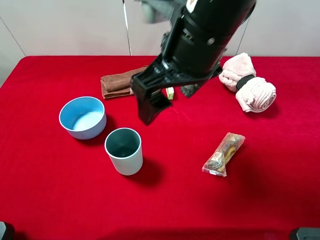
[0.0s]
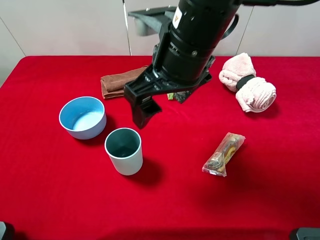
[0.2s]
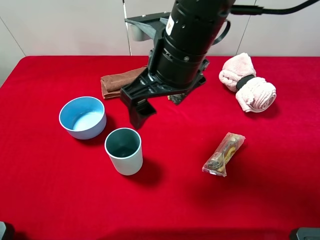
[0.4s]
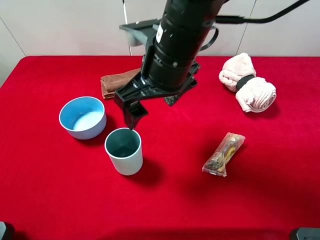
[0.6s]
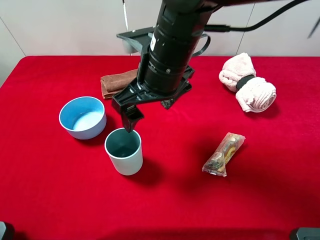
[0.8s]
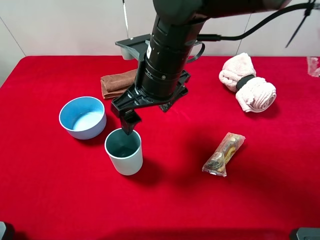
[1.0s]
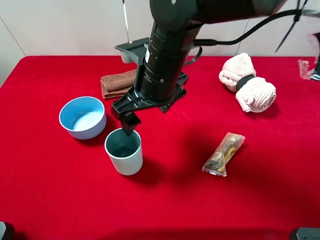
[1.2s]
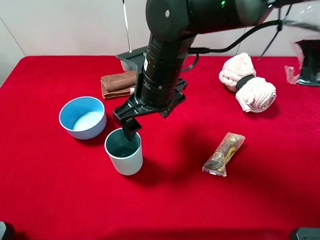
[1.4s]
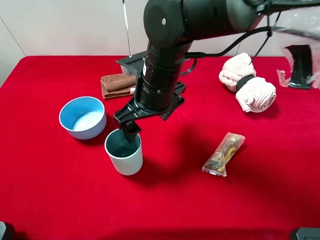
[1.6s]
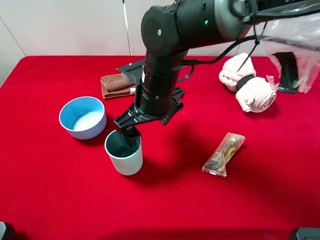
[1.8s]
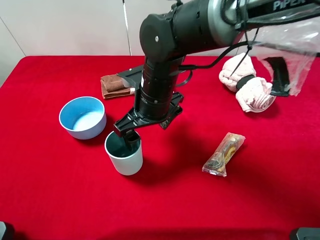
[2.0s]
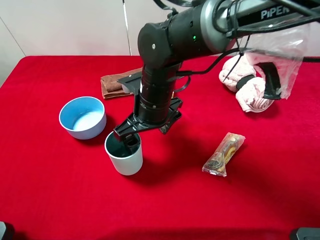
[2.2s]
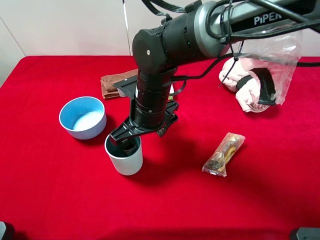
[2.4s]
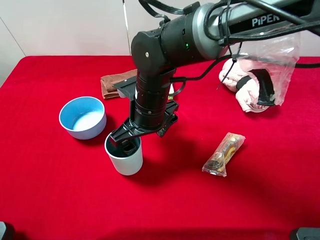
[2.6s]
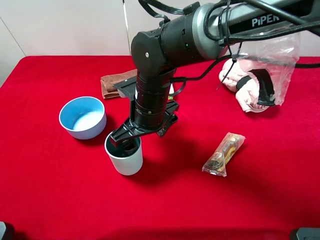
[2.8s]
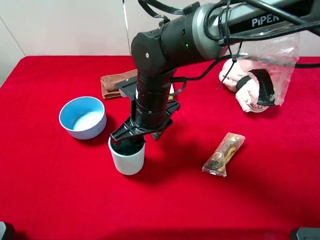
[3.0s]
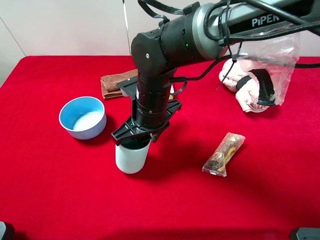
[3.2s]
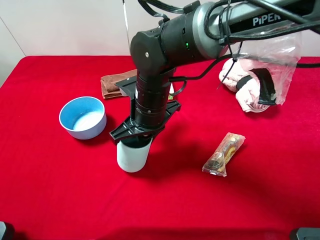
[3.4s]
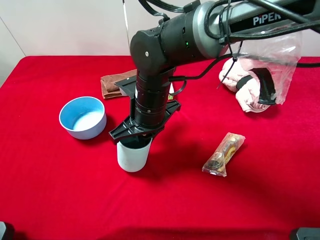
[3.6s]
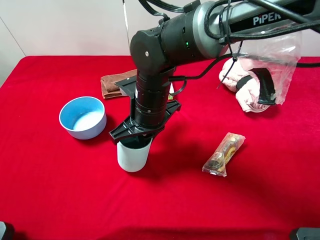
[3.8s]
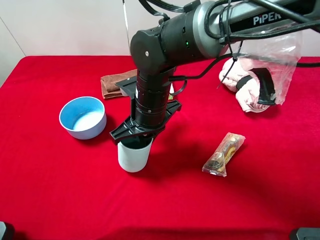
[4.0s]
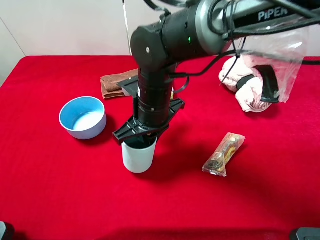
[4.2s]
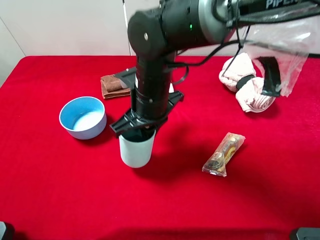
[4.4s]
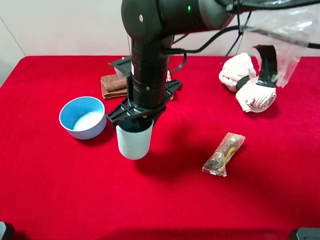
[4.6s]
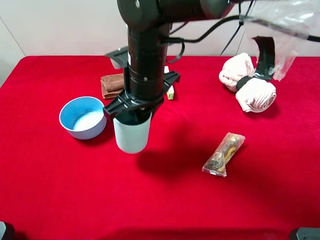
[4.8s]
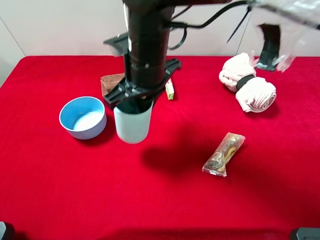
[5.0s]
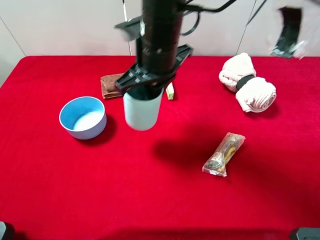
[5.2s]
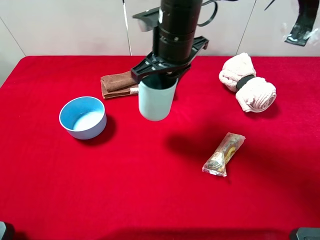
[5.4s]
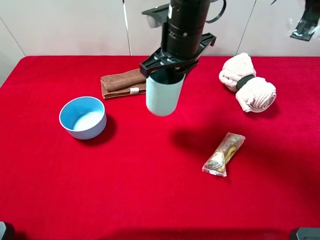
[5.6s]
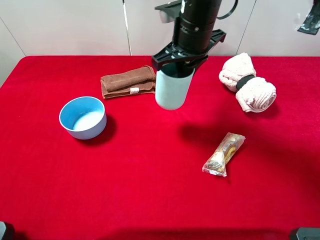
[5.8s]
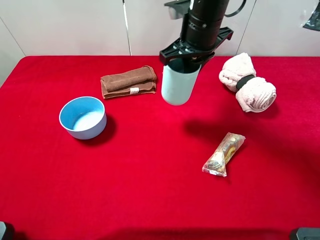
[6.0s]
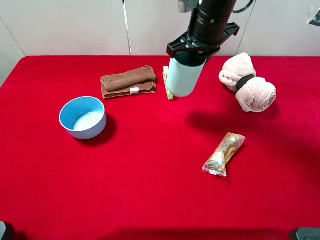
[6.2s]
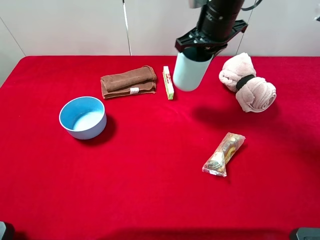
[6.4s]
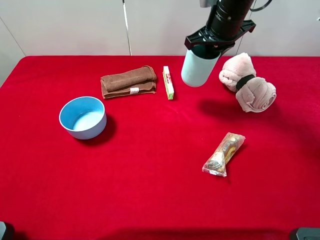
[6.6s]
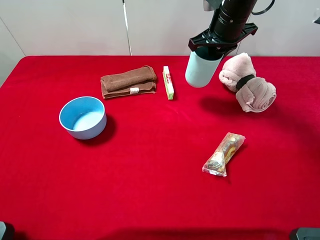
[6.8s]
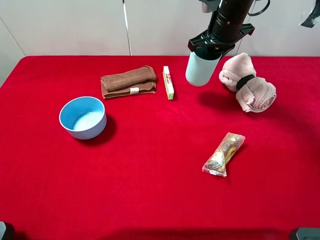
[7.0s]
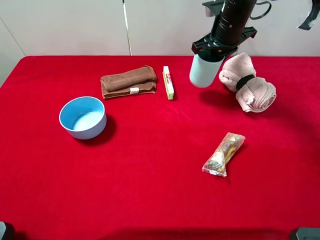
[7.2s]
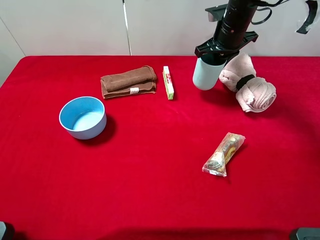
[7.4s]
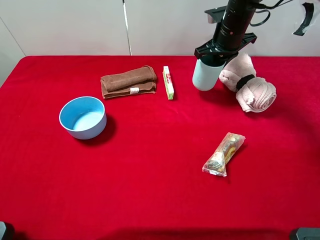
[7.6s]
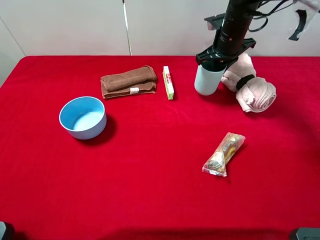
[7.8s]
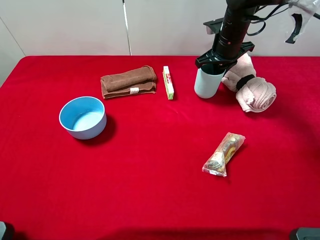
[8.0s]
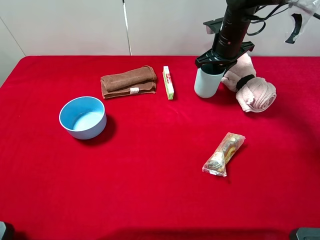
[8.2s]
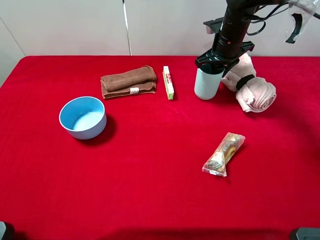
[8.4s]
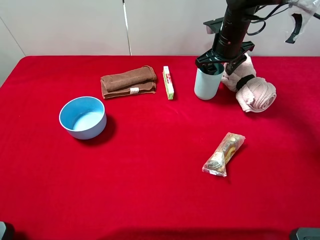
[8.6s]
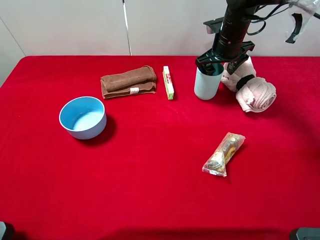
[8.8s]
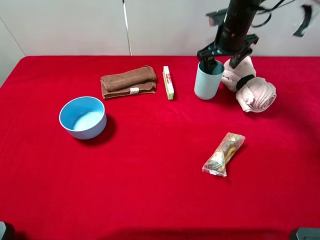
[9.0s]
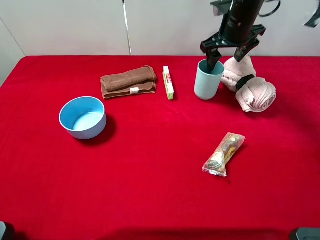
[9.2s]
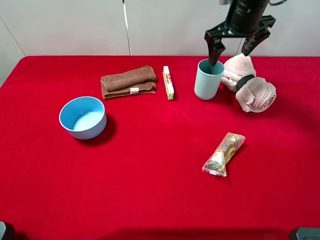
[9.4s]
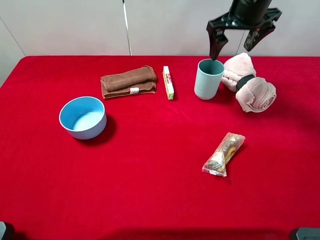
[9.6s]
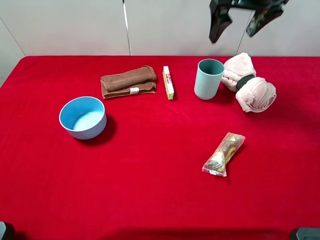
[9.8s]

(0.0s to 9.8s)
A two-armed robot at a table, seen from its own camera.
Task of the whole recording: the gripper move the object.
Step, 0.0s - 3.8s: Grasp the blue cup with the right gripper.
Step, 4.0s - 9.4s: Place the blue cup on the table with the right gripper.
0.0s - 1.4s: The right gripper shifts some 10 cm downward.
1.4s - 2.8s: The right gripper moves downward, approximately 5 cm.
2.8s - 4.2s: The right gripper closes its fingers.
4.2s - 5.6s: The right gripper heads upward and forward, covering about 10 cm.
5.6s - 7.0s: The right gripper is displaced forward and to the right by some 15 cm.
7.0s - 8.4s: The right gripper shifts some 5 cm downward, and opens up.
8.4s - 9.8s: The right gripper goes roughly 15 cm upward, and opens its fingers.

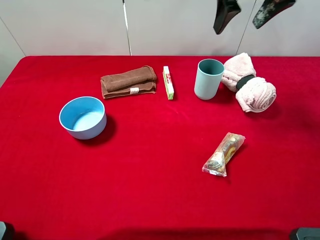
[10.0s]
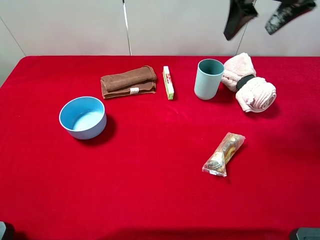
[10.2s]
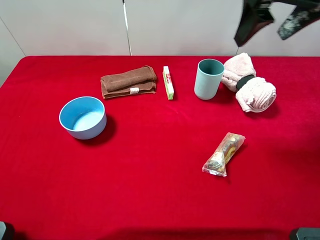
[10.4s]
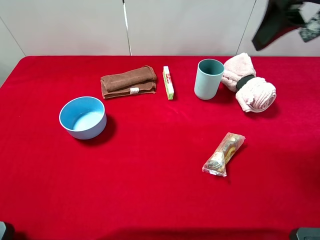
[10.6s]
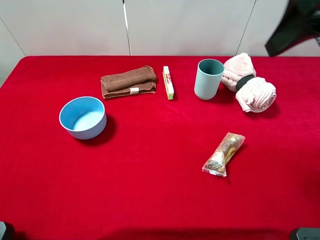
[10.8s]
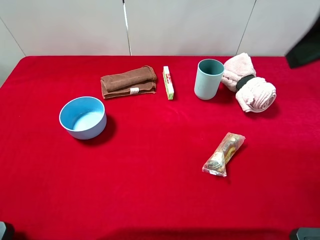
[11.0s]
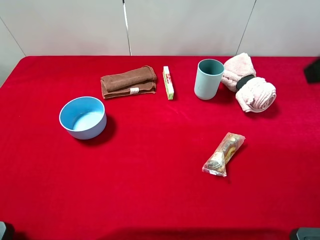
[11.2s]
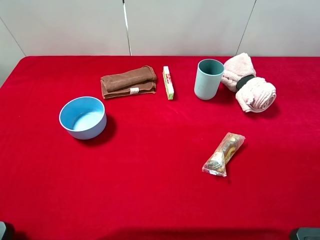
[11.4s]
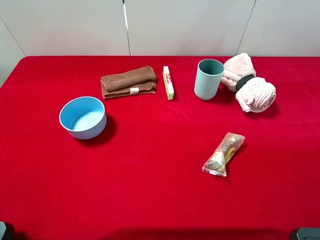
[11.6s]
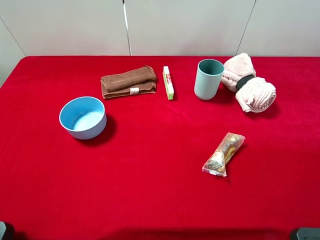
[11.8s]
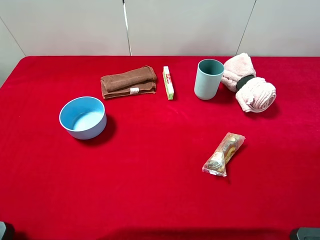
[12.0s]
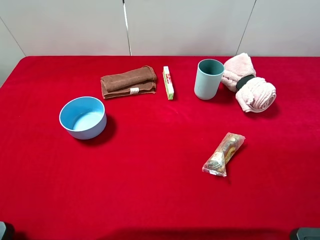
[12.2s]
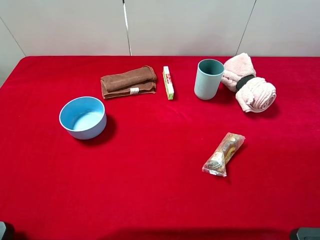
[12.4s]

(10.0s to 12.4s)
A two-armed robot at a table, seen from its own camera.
Task of the whole recording: the gripper move the object.
10.0s - 11.2s: The right gripper moves backward, some 20 cm.

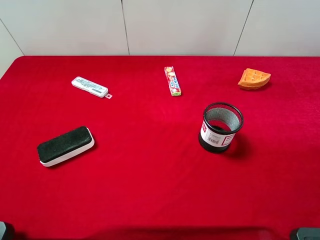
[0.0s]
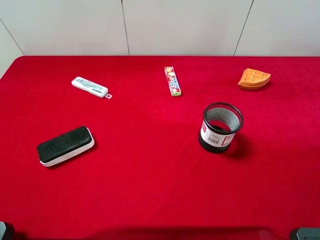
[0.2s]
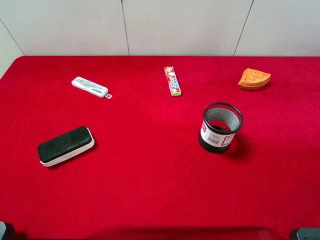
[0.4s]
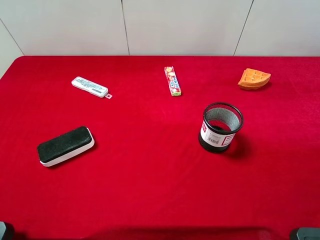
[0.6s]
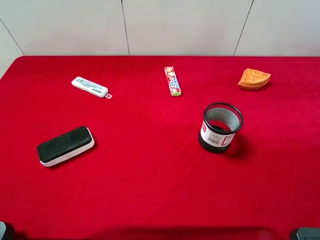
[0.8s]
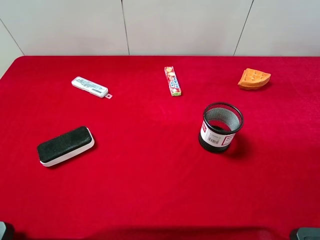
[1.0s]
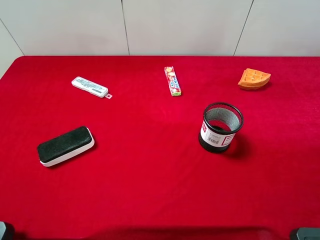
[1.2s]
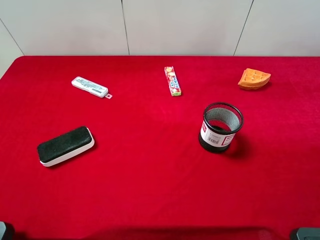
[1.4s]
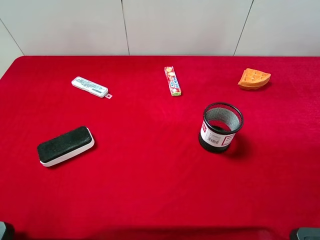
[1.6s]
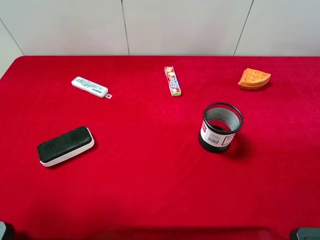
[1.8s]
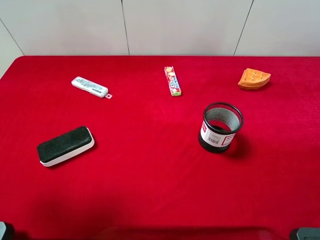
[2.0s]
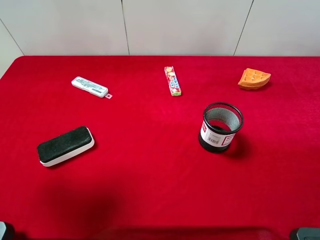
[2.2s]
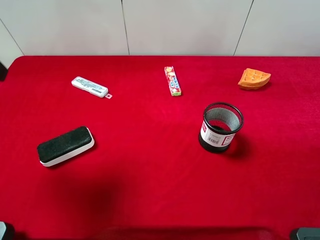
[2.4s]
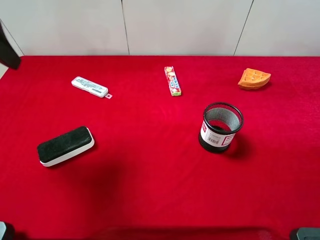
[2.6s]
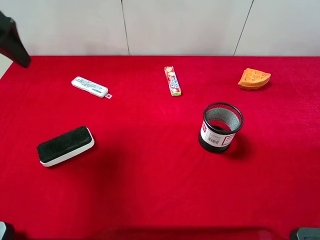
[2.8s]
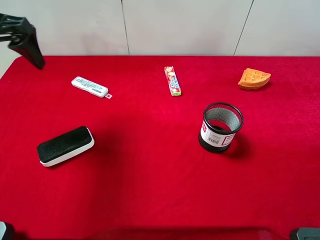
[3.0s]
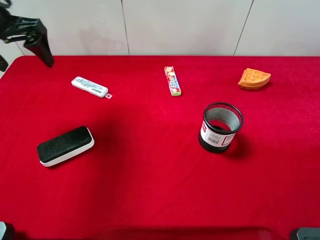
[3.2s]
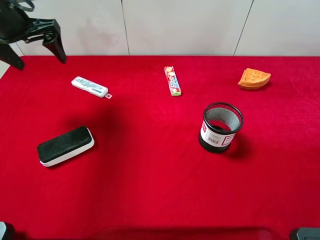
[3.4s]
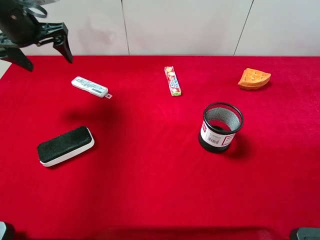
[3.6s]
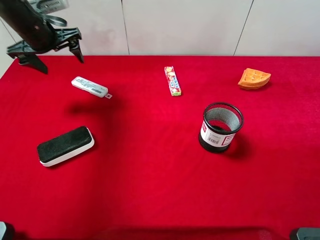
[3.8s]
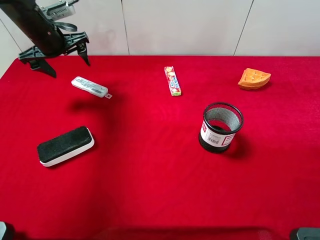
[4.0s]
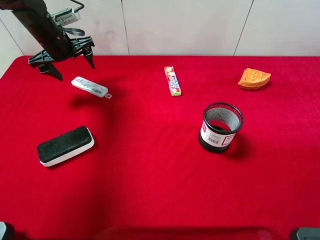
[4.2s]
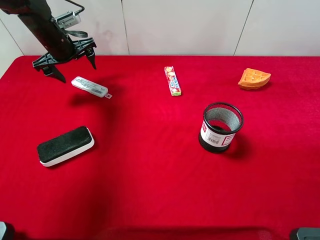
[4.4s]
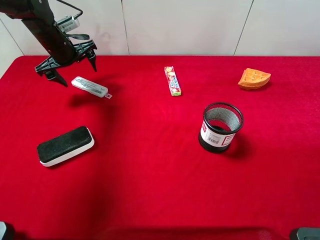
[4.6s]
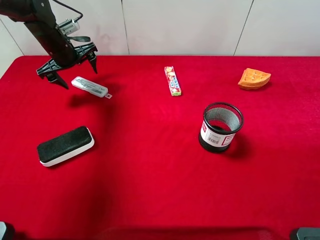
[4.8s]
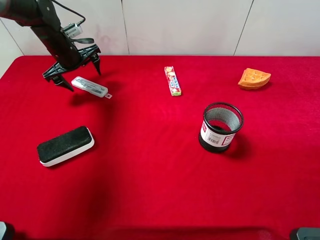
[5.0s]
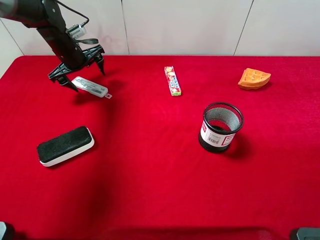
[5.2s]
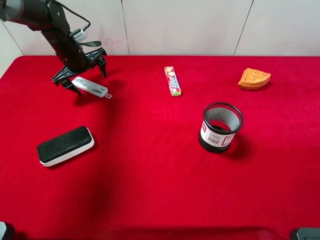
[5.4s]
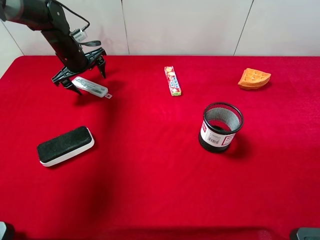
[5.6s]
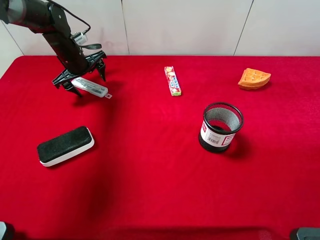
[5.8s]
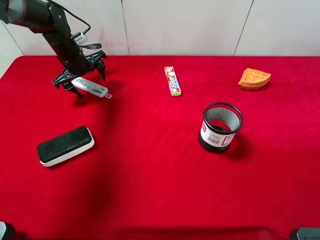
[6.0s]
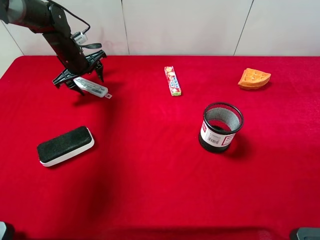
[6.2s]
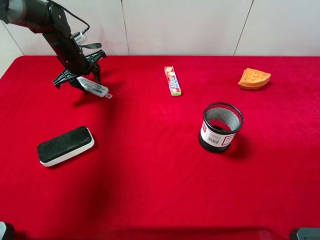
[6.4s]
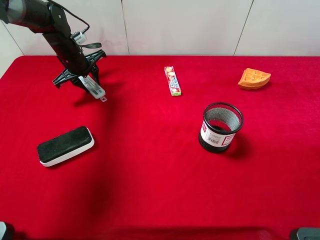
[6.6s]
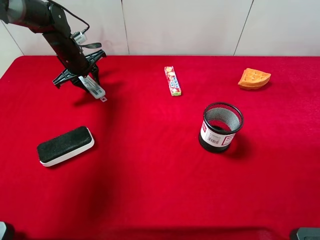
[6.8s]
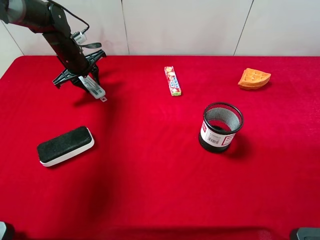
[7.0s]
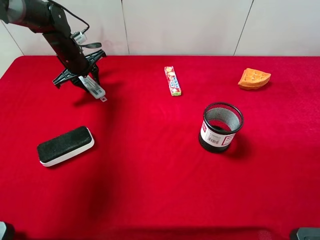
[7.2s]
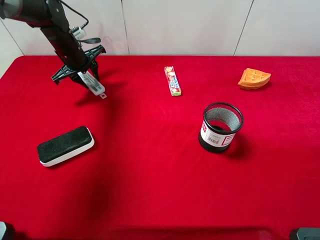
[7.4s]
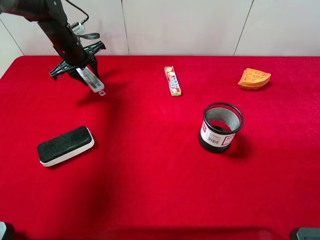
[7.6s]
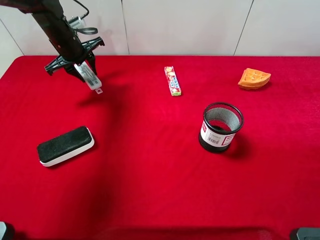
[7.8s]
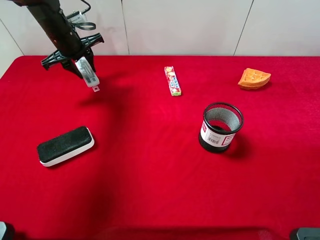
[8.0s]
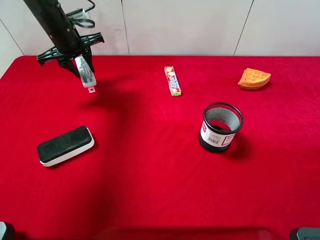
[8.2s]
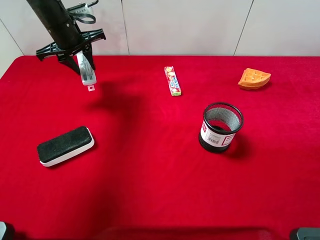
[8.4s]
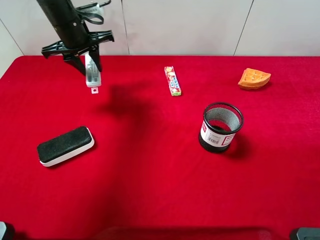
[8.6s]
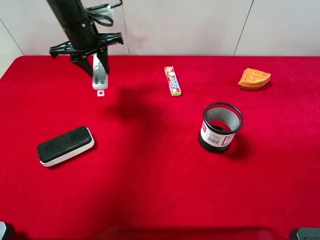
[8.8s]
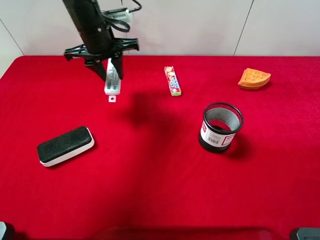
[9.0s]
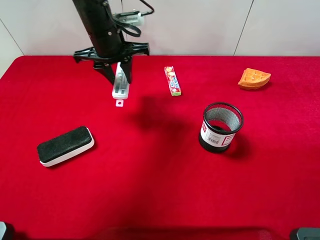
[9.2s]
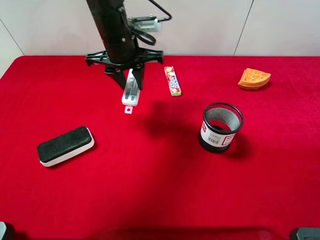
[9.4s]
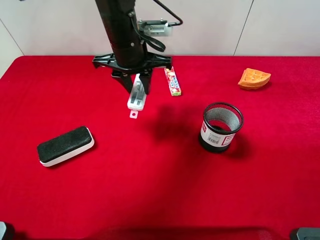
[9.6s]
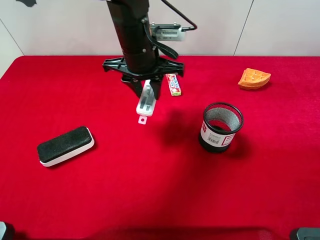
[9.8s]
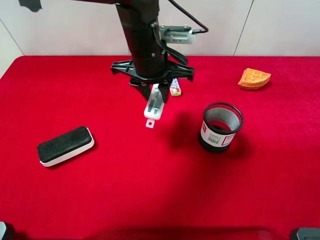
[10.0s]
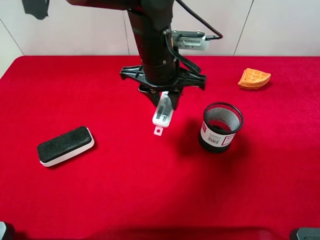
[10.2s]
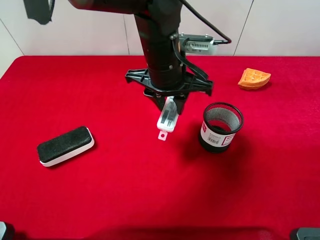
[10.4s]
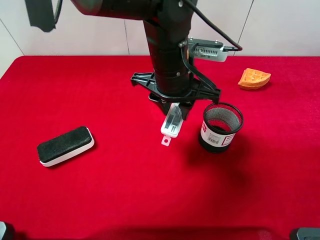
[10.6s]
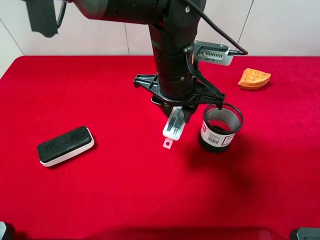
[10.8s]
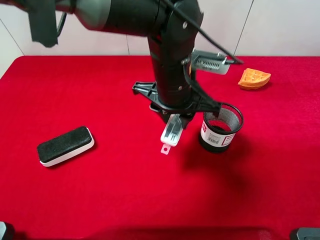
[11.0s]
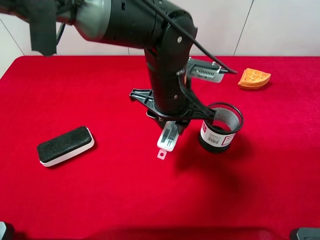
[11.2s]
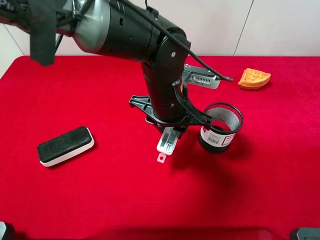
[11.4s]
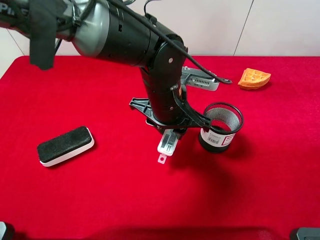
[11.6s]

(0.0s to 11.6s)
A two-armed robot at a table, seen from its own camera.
Task of the whole recording: the gripper move the object.
Step, 0.0s - 6.6s: Grasp the compasses with the left gripper.
1.4s - 2.8s: The left gripper moves forward, approximately 25 cm.
2.8s - 4.4s: The left gripper goes some 25 cm forward and downward.
4.4s - 5.8s: The left gripper moves some 5 cm.
5.8s - 7.2s: The left gripper closes its fingers.
7.2s - 8.8s: The left gripper travels upward and to the right by approximately 10 cm.
8.8s - 10.2s: The left gripper heads to the right and backward, covering some 20 cm.
10.2s - 11.6s: The left gripper travels downward by roughly 5 cm.
